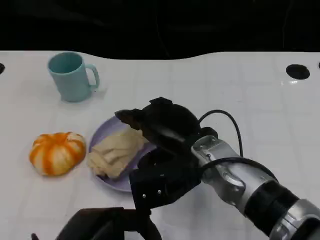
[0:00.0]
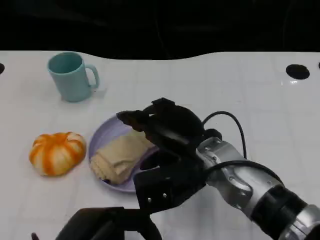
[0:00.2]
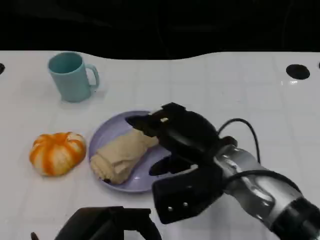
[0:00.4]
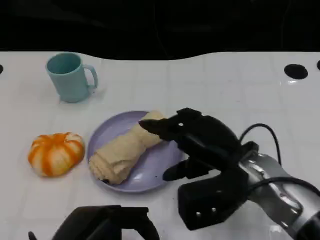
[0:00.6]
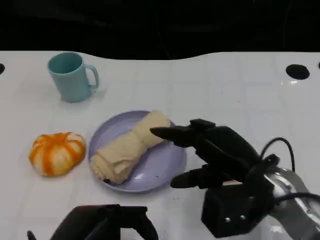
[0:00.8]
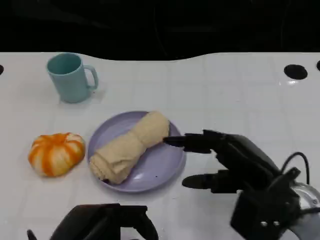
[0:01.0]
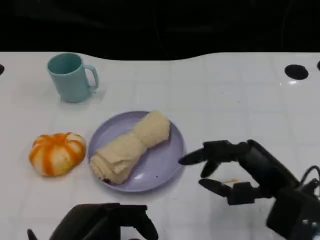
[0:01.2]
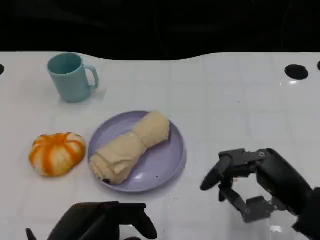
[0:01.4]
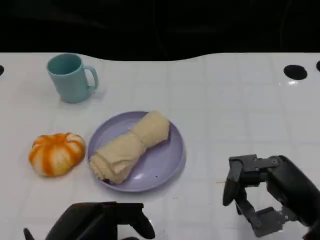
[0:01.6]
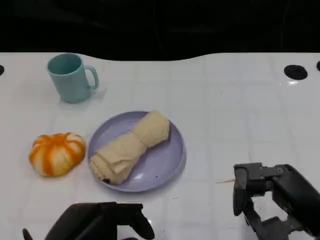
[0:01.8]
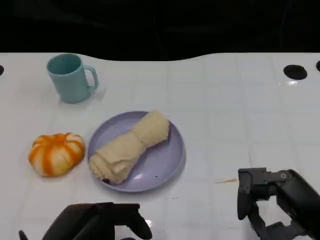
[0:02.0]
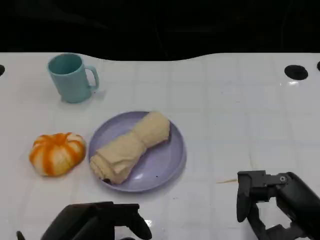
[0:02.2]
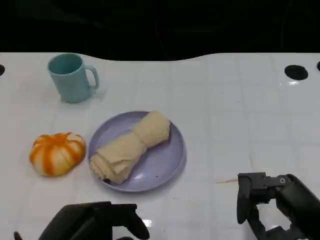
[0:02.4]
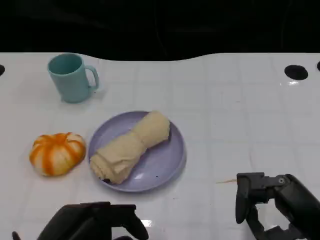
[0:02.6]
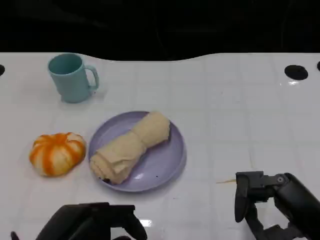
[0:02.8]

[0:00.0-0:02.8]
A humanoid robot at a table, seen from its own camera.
Task of the whole recording: Grasp the towel on the left side of the plate with the left hand and place it into the plate.
0:00.0 to 0:01.4: The right hand is displaced to the right and backward by some 20 cm.
0:01.4 to 0:02.8: There are only small adjustments of the hands.

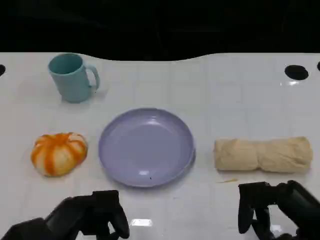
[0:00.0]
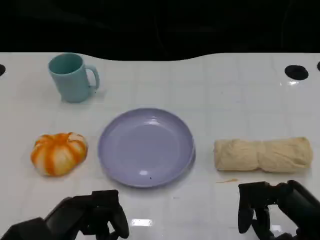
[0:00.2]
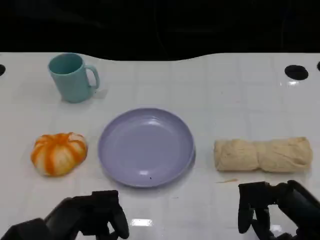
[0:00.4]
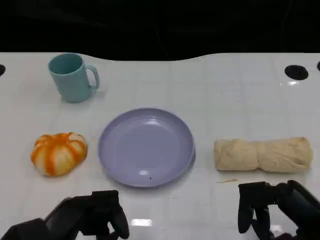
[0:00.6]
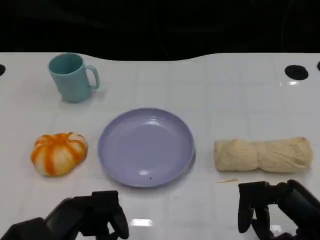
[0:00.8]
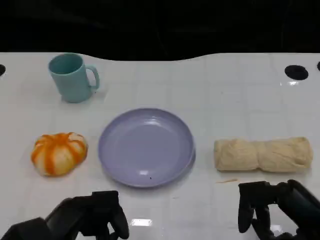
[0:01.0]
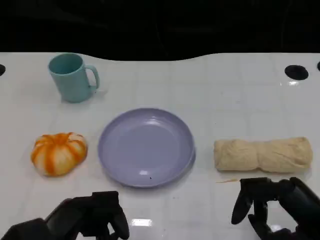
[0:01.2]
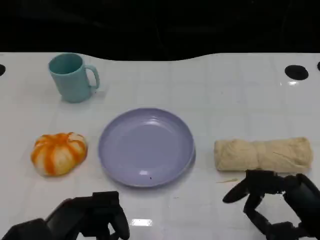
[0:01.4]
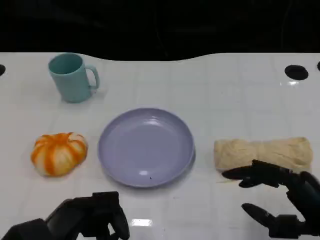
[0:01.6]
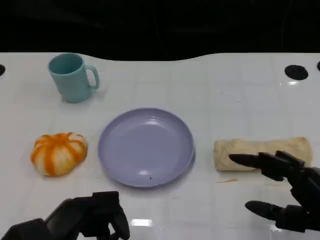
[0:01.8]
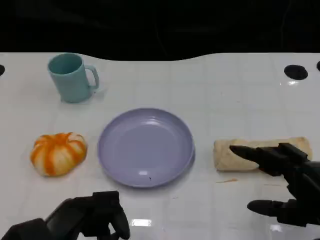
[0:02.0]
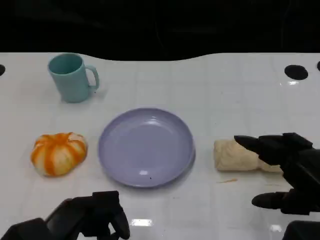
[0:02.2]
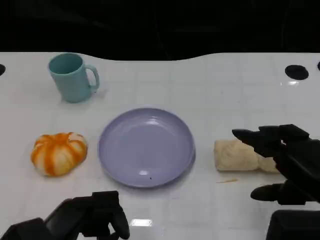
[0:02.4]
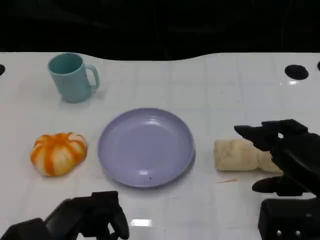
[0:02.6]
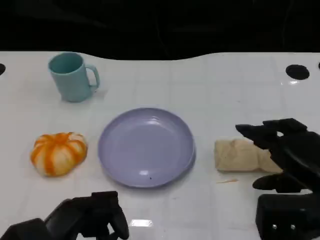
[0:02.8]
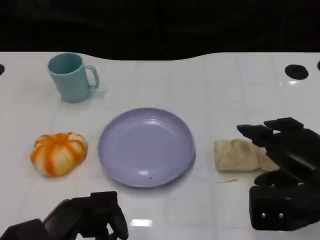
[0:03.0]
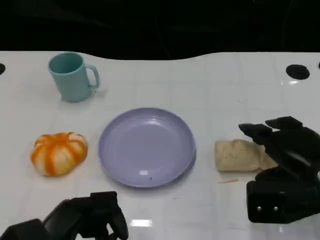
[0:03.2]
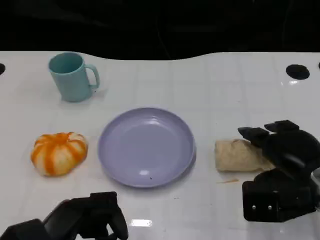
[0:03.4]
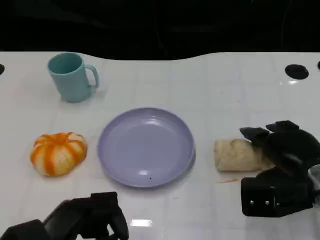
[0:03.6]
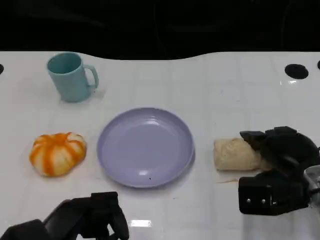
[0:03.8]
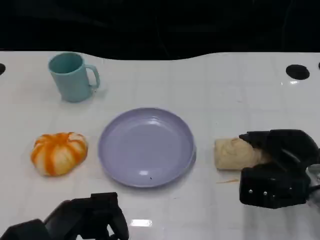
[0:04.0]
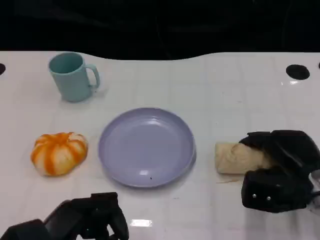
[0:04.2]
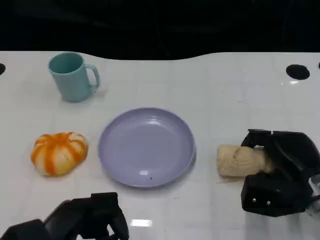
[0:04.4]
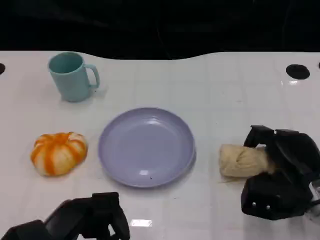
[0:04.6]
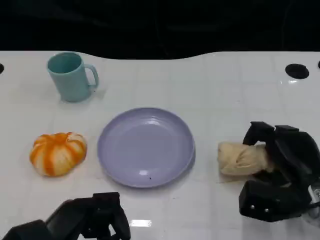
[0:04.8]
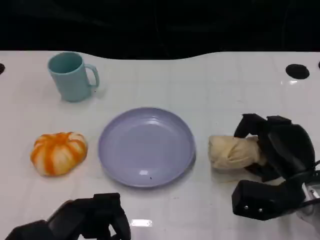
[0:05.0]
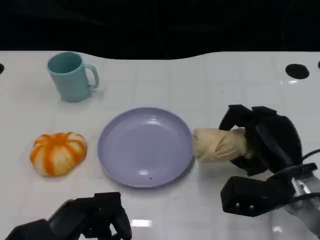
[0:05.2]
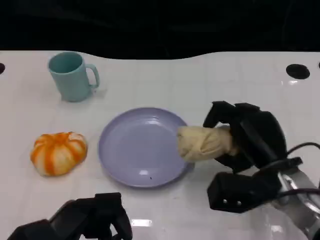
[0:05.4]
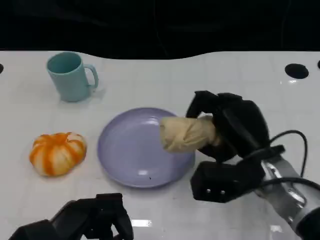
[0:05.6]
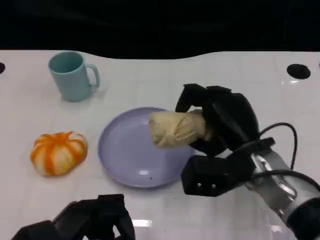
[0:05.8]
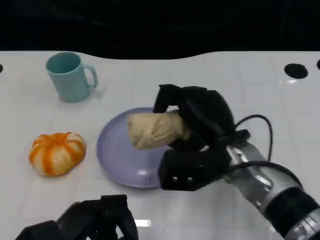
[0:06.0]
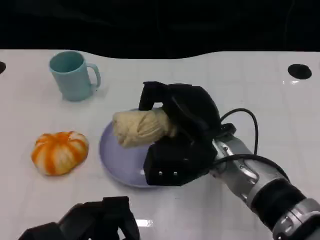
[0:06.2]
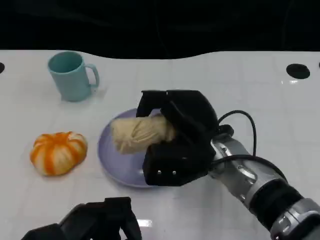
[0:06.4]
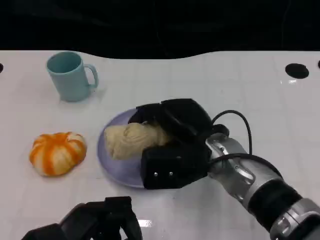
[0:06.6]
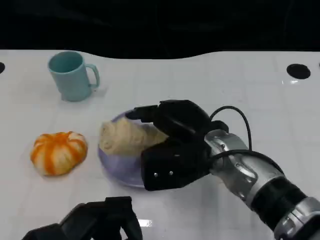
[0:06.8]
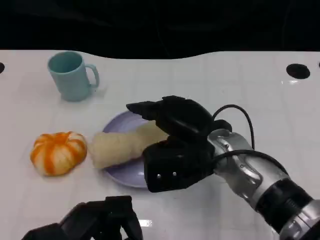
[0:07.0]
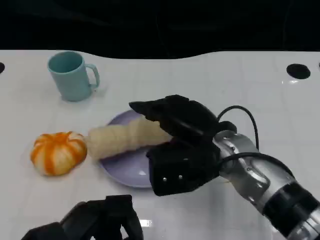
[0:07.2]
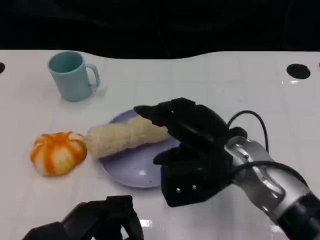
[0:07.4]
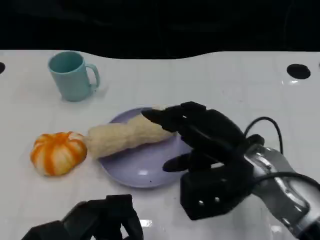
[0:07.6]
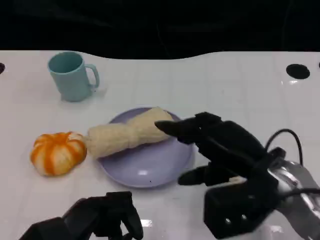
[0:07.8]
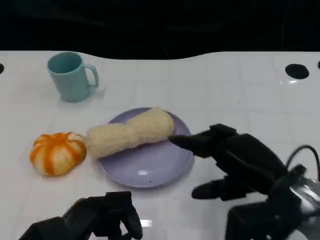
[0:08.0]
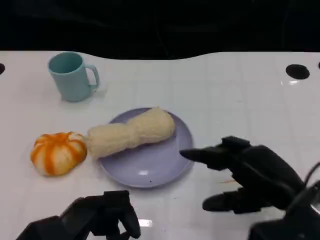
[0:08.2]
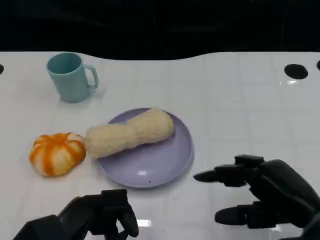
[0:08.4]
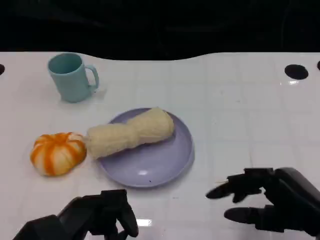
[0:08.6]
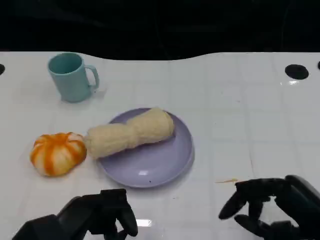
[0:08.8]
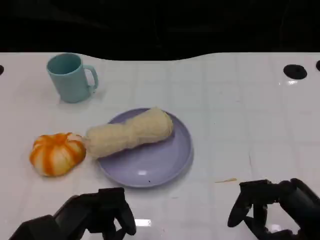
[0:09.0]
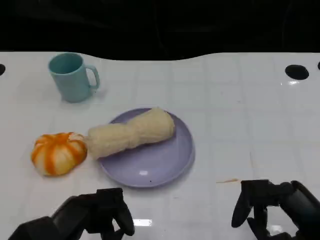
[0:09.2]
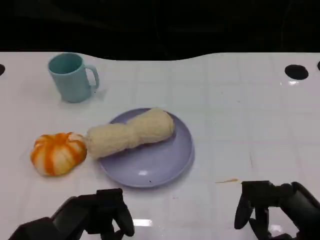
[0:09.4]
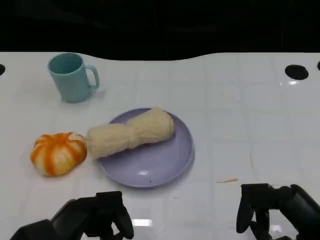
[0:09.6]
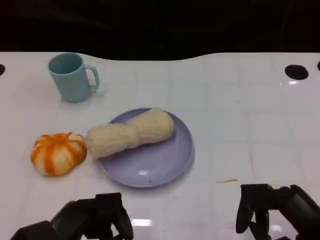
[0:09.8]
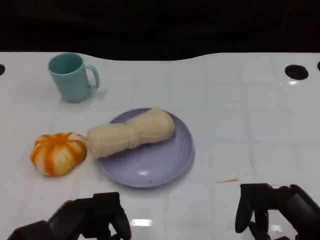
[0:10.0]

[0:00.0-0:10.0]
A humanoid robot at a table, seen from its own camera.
Task of the whole recording: Grasp the towel on the left side of the plate with the left hand and place it into the plate.
0:00.0 to 0:01.4: There are only small adjustments of the hands.
0:01.4 to 0:02.8: The right hand goes about 5 cm forward.
0:02.8 to 0:04.2: The right hand shifts roughly 10 cm downward and forward.
0:04.2 to 0:05.8: The right hand shifts approximately 10 cm to the left and upward.
0:07.2 to 0:08.6: The right hand heads to the right and backward, covering some 20 cm.
0:08.6 to 0:10.0: The hands stay close to where they were, moving slightly.

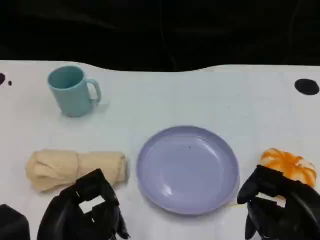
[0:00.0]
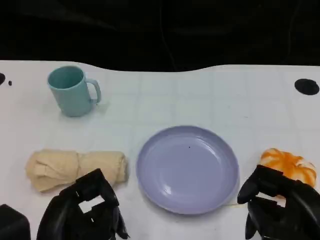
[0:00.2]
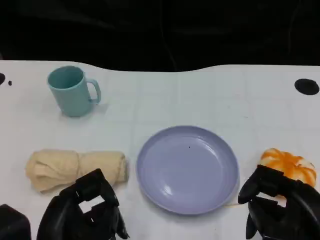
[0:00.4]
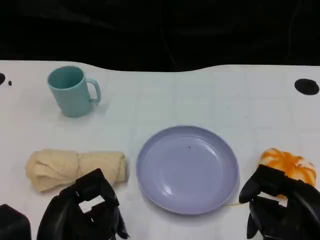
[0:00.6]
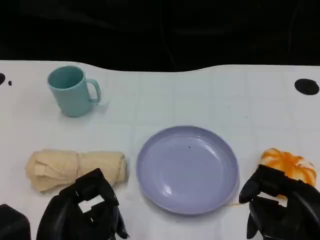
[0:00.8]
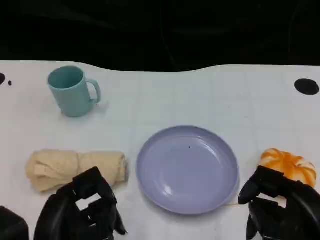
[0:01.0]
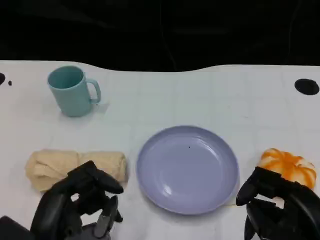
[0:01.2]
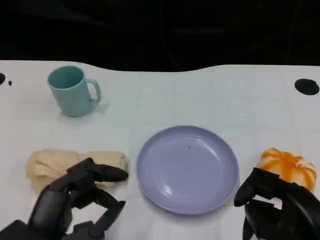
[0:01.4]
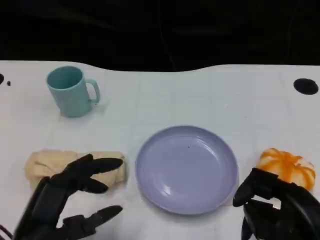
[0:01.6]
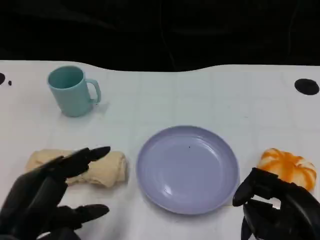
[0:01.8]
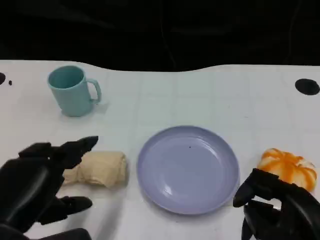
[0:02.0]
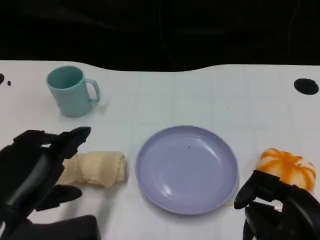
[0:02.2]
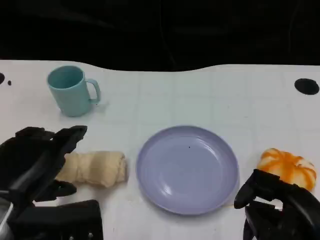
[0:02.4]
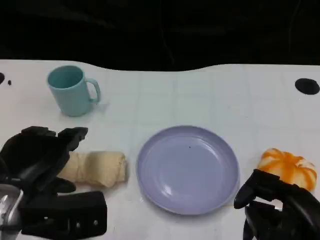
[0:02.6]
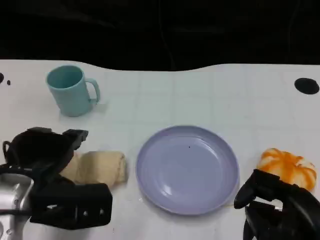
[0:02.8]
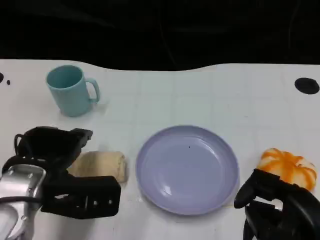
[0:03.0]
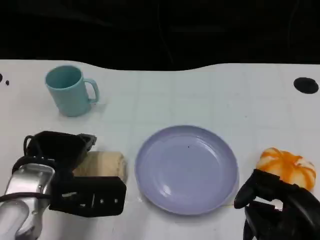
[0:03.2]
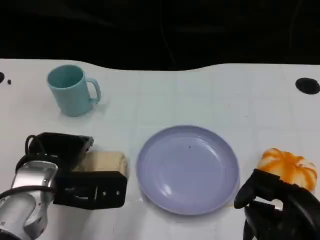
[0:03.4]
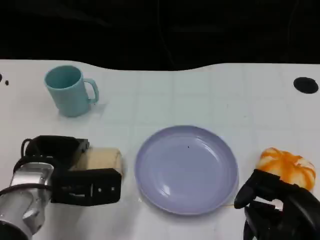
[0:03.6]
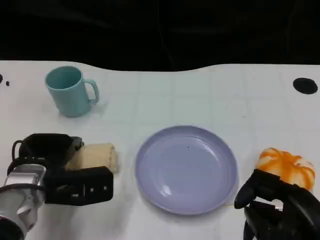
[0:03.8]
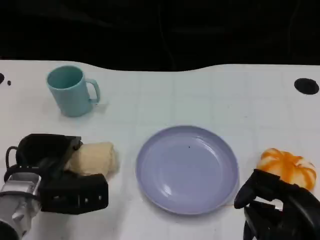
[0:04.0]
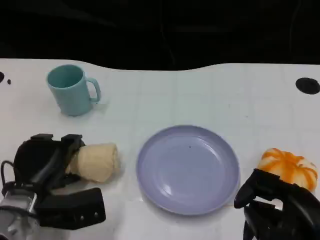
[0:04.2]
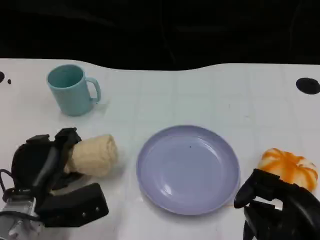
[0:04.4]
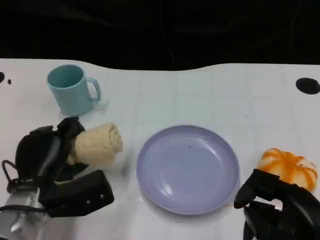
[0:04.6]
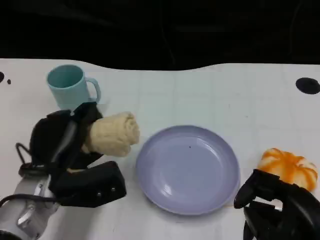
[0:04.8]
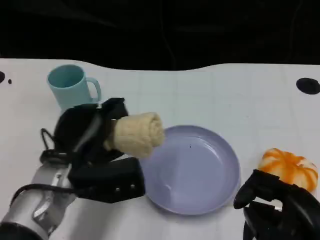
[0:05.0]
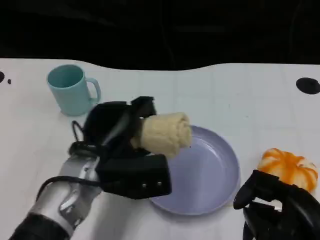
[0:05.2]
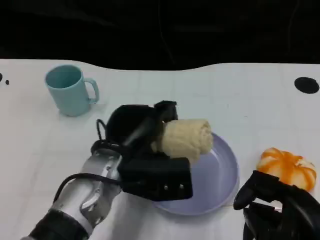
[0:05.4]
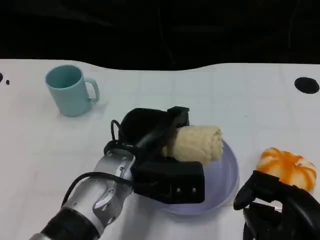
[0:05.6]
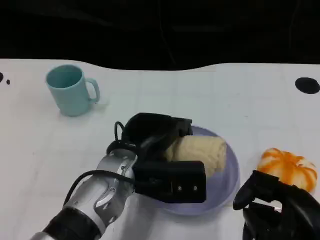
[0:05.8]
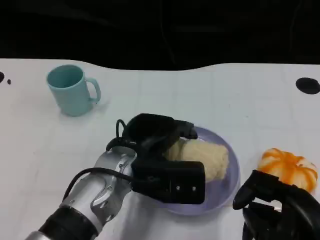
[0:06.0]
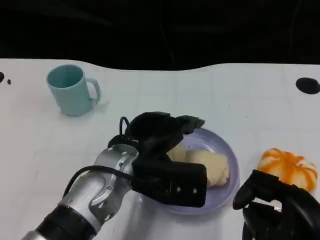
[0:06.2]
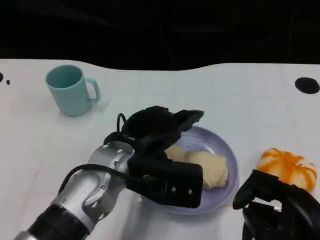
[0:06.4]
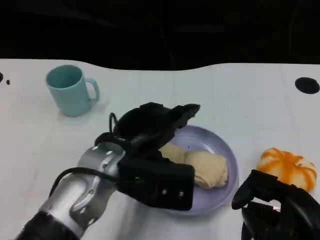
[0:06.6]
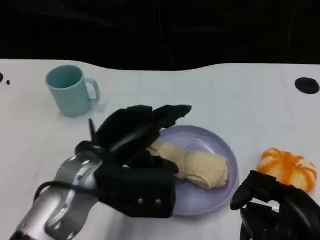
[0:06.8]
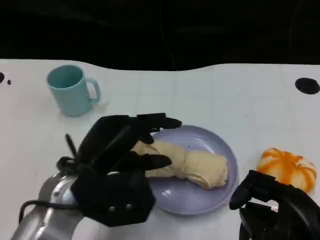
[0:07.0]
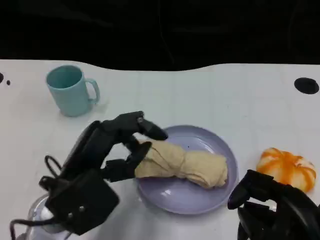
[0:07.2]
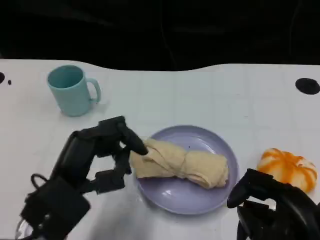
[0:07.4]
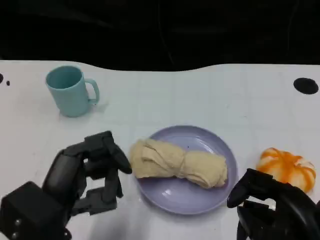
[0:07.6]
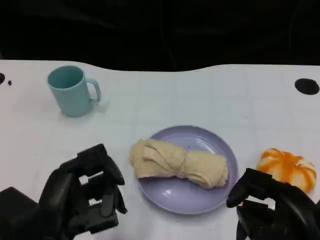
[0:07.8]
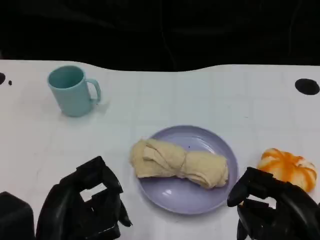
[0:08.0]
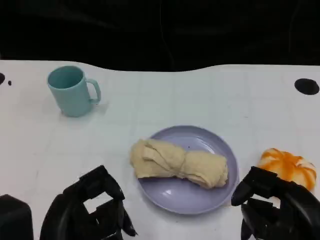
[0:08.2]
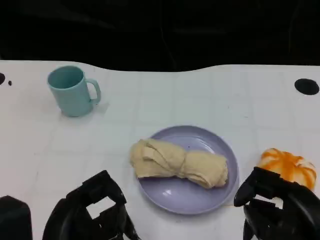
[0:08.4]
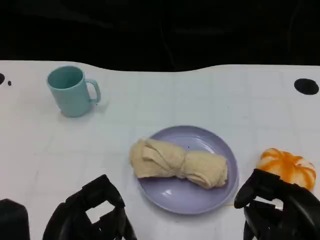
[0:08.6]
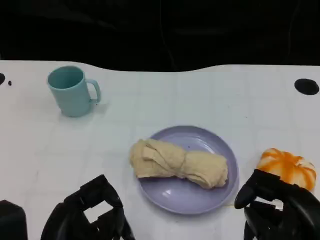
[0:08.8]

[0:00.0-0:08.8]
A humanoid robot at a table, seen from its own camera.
Task of the whole recording: Grasp the towel on the left side of the plate with the left hand and place it into the plate.
0:01.4 to 0:03.0: The left hand travels forward by about 10 cm.
0:03.0 to 0:04.4: The left hand heads downward, covering roughly 10 cm.
0:04.4 to 0:05.8: The left hand goes approximately 15 cm to the right and upward.
0:05.8 to 0:07.4: The left hand shifts approximately 15 cm to the left and backward.
0:07.4 to 0:08.8: The left hand moves backward, roughly 5 cm.
